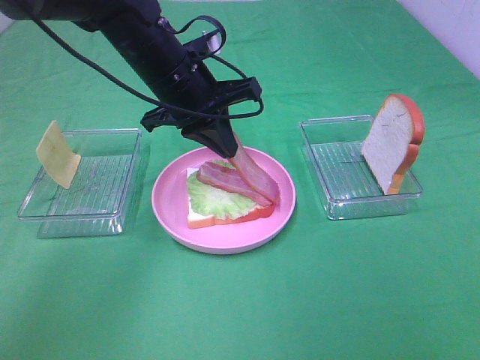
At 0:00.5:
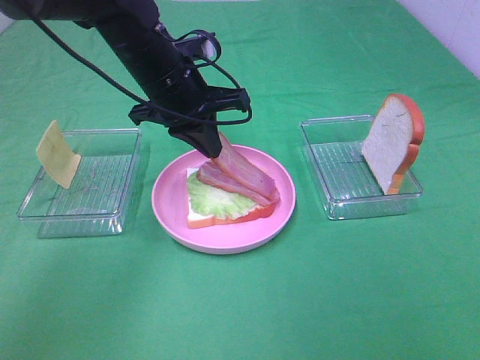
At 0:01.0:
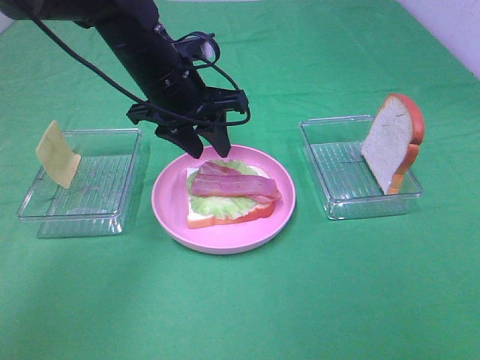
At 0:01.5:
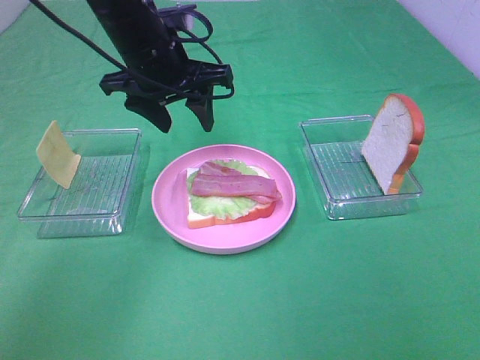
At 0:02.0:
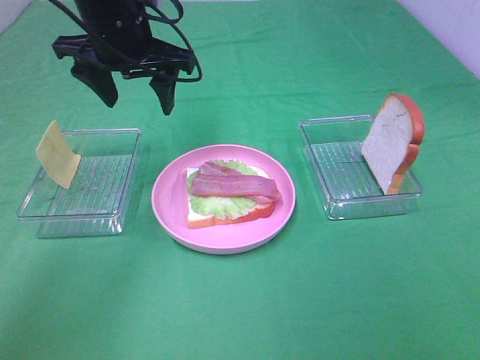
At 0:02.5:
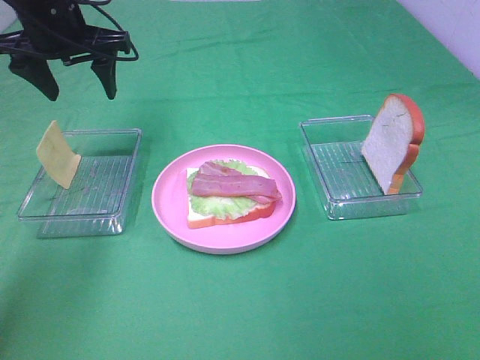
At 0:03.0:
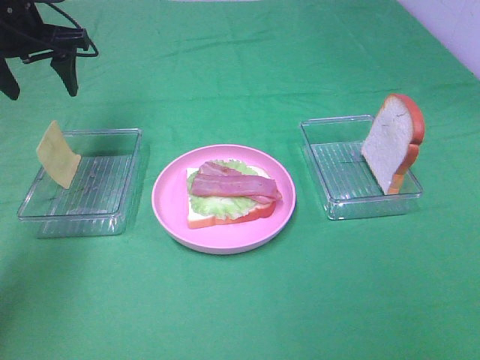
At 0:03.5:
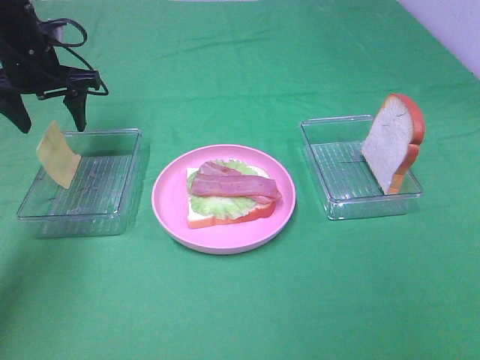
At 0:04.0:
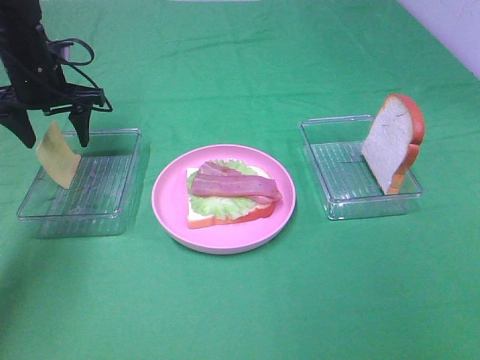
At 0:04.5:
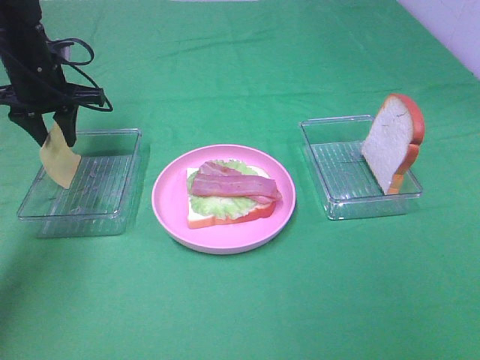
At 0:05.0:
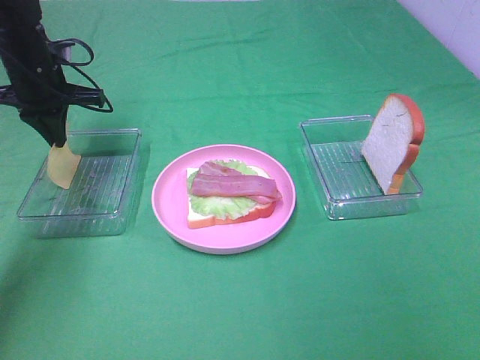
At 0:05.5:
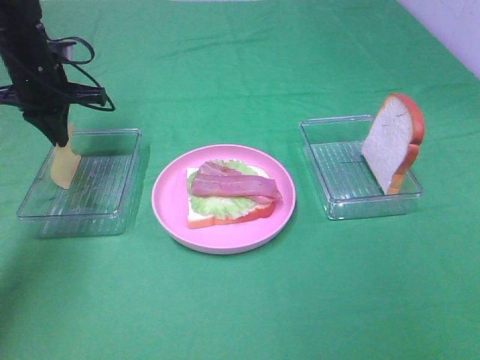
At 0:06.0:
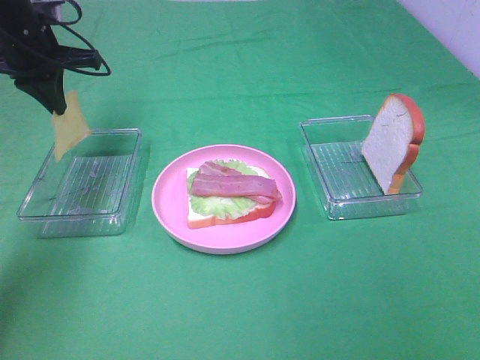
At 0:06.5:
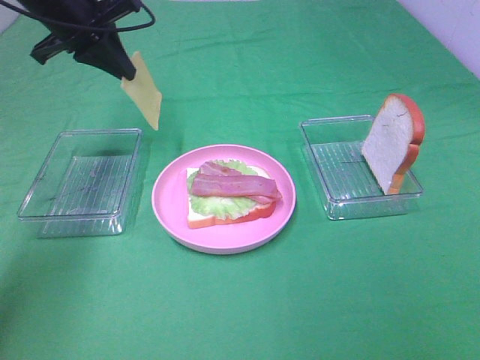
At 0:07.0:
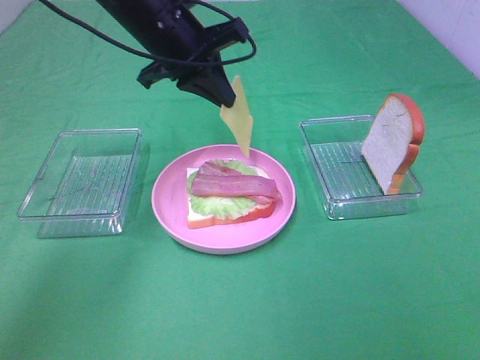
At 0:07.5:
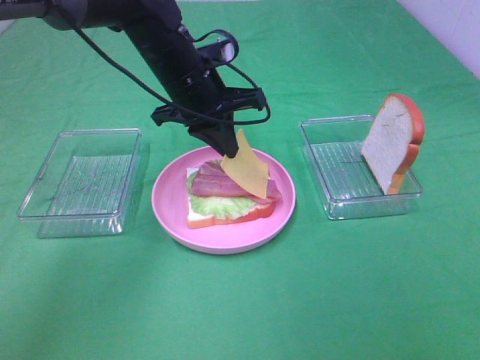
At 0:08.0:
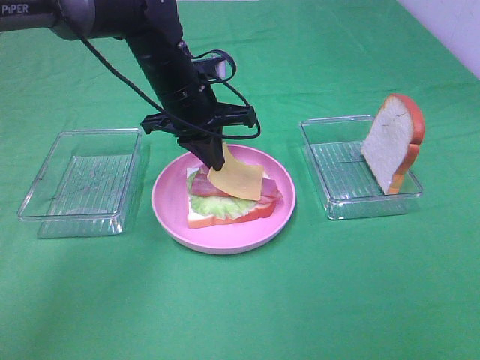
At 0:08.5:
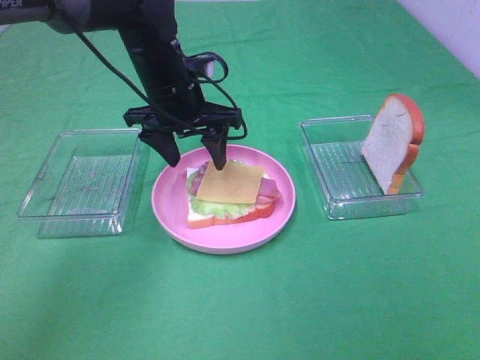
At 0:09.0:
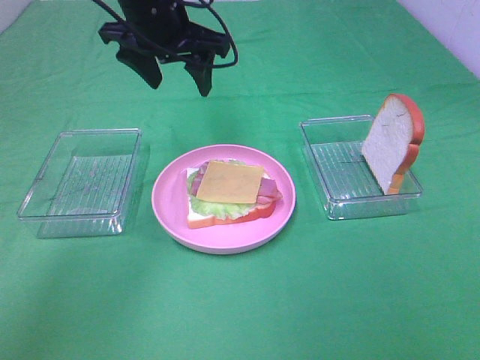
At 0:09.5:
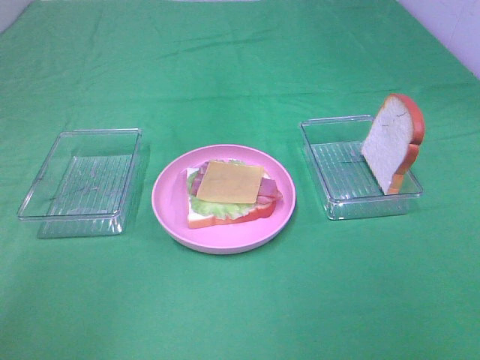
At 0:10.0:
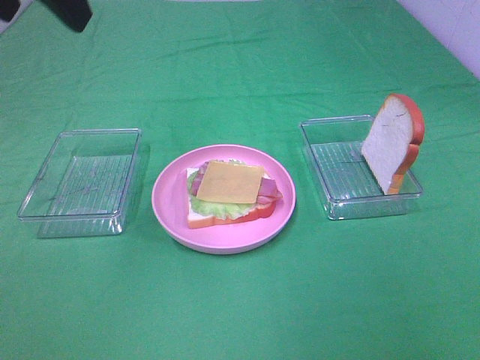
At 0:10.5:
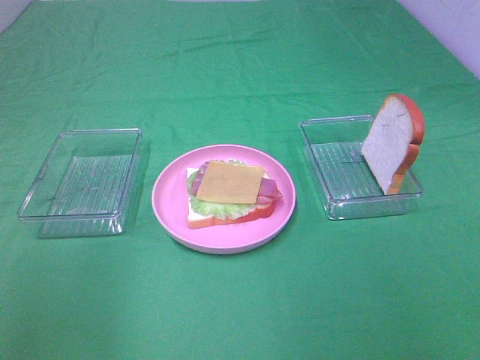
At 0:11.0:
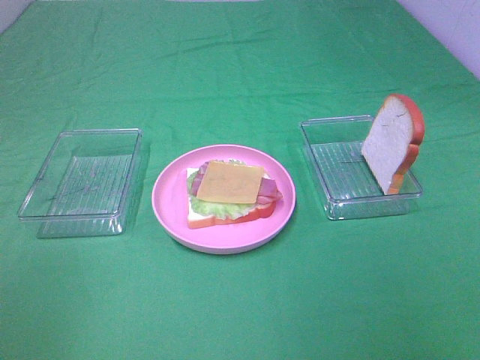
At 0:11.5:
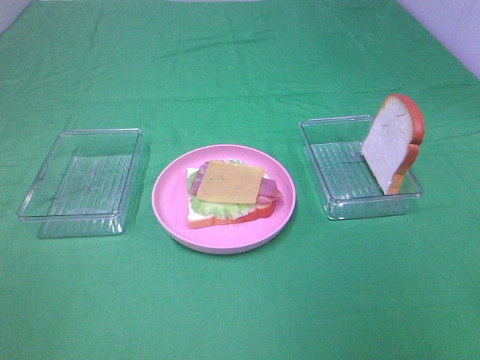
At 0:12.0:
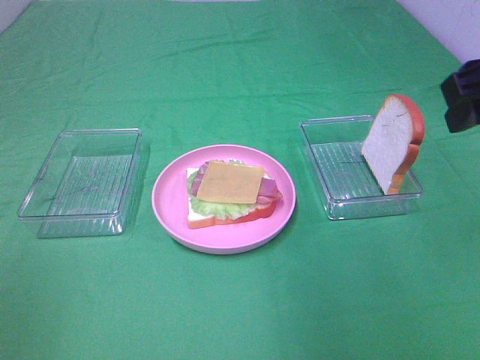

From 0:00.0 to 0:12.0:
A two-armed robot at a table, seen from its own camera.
Task of the whole recording: Make sandwiches.
Step, from 0:01.5 to 0:05.0: Left hand:grab the cheese slice.
Step, from 0:05.5 to 0:08.0: Left hand:place the cheese slice on top of the bacon.
From 0:00.0 to 0:02.0: The left gripper goes roughly 10 cm upward and to the left, and opens its fingers.
From 0:02.0 to 0:04.0: The left gripper is displaced to the left and downward by approximately 15 cm.
From 0:04.0 to 0:06.0: The left gripper heads upward, covering approximately 5 cm, and closes up.
From 0:06.0 to 0:08.0: The left gripper goes some 20 cm to the right.
From 0:08.0 to 0:10.0: The left gripper heads upward, backward and to the left, covering approximately 30 cm, and opens up.
From 0:10.0 to 0:12.0: The left gripper shifts some 30 cm backward, to the left and downward, while the right gripper heads forward, covering some 25 cm.

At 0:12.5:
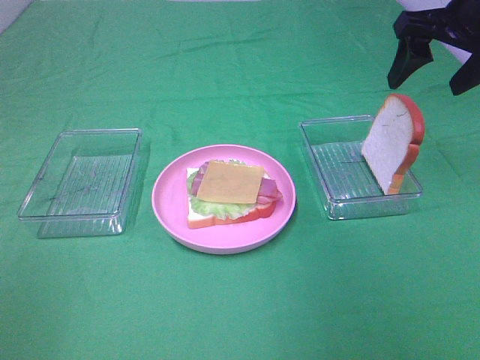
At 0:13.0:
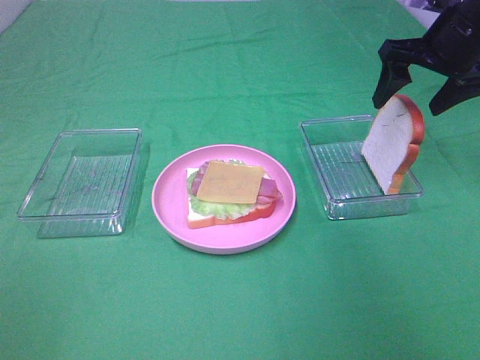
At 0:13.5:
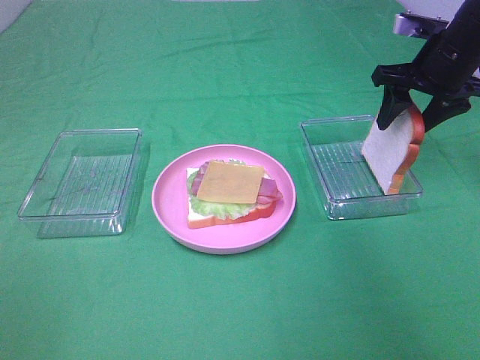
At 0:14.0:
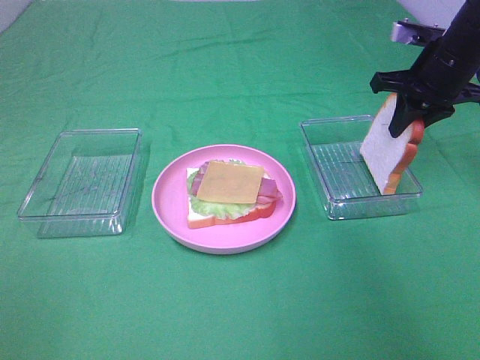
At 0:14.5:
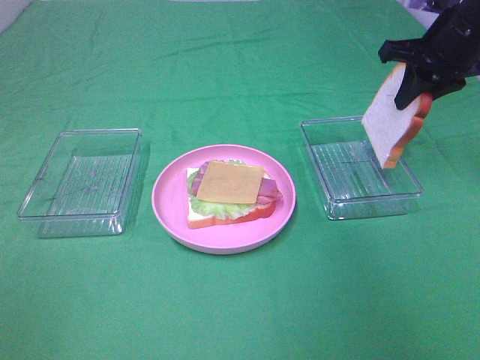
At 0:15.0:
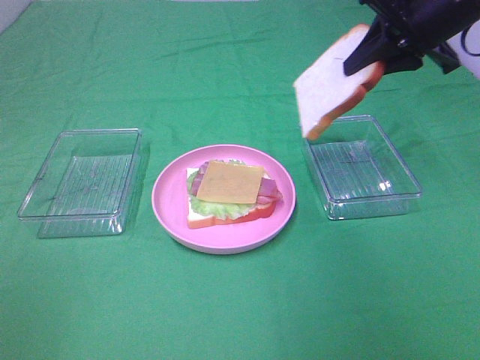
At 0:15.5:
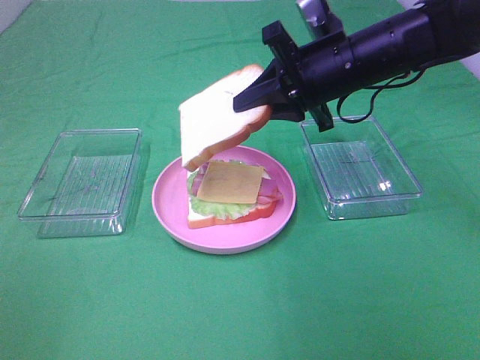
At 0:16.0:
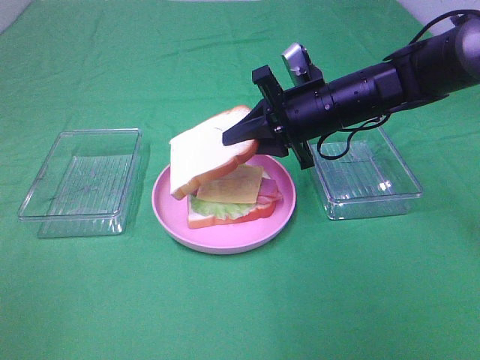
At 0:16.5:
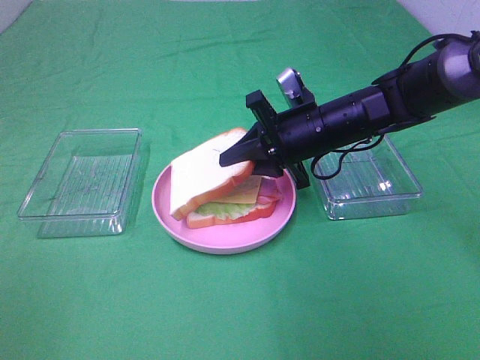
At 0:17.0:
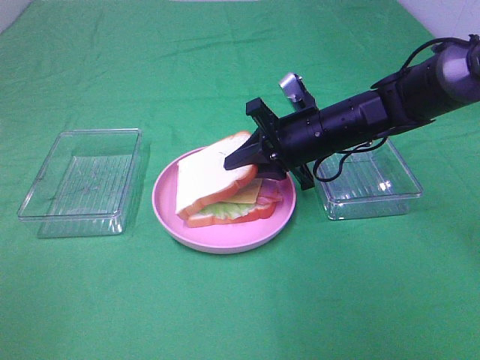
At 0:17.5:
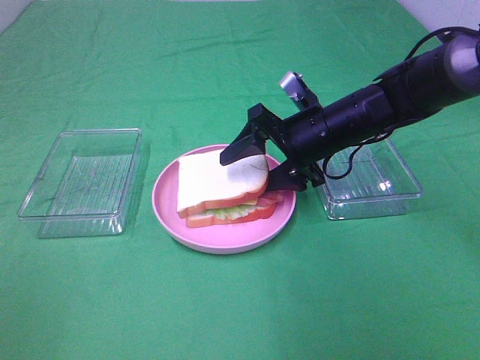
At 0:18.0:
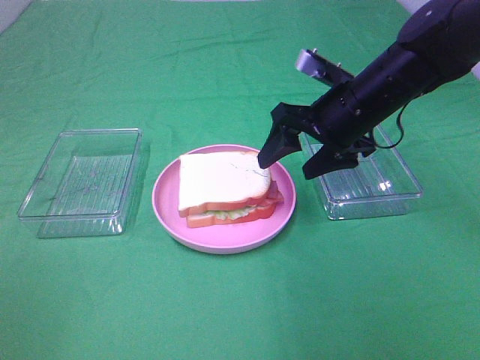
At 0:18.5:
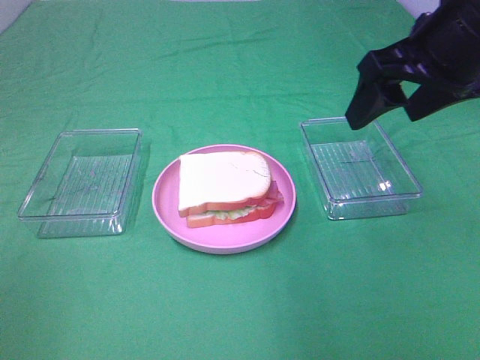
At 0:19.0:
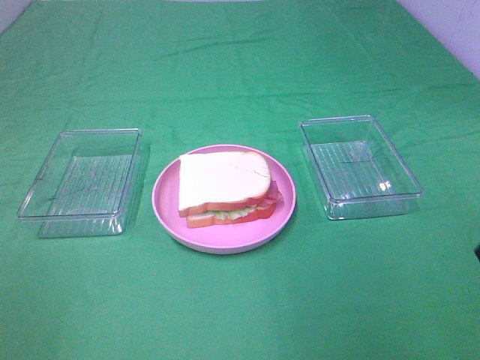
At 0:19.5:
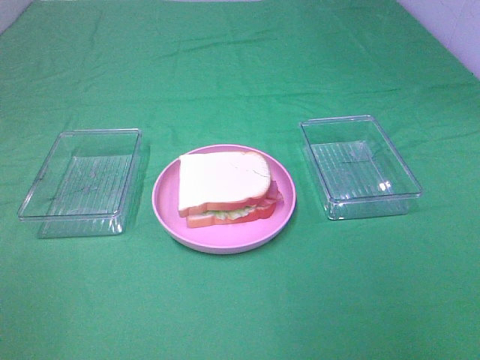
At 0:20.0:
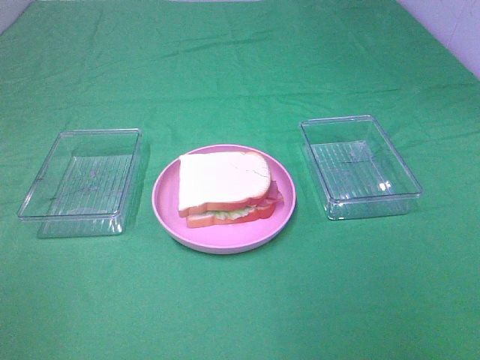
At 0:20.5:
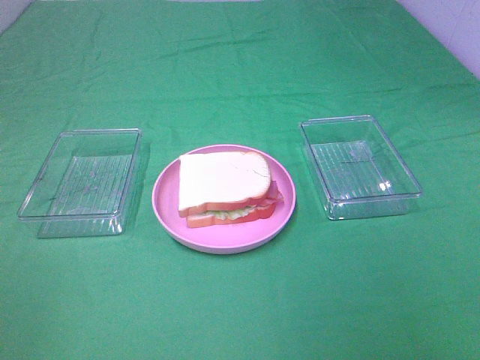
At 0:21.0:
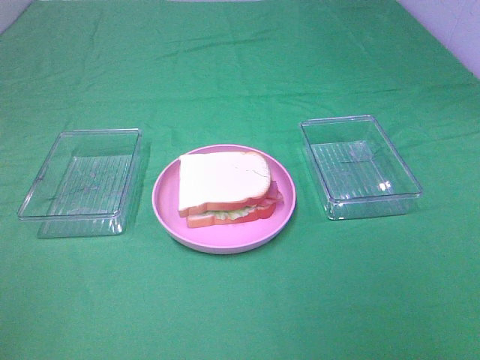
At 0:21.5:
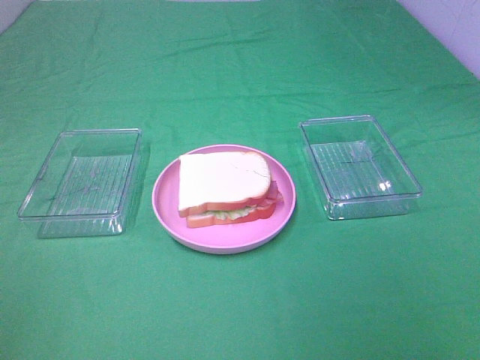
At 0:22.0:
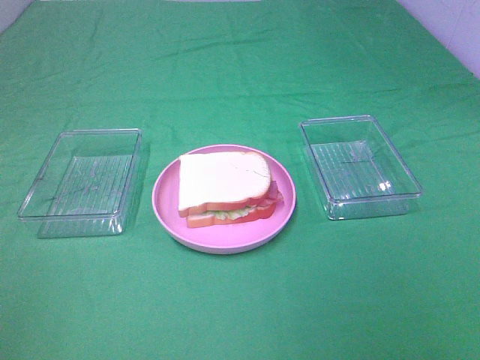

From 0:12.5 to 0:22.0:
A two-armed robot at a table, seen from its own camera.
Task of the whole recording: Make sandwiches.
Step, from 0:14.5 to 0:17.5: Right hand:place the bread slice on the cheese slice.
From 0:12.5 to 0:14.5: The right gripper closes up.
From 0:14.5 to 0:16.5: The right gripper goes approximately 20 cm to the left and downward.
From 0:16.5 to 0:18.0: The right gripper travels upward by roughly 5 cm, and opens up.
From 0:18.0 to 0:20.0: The right gripper travels backward by roughly 35 cm.

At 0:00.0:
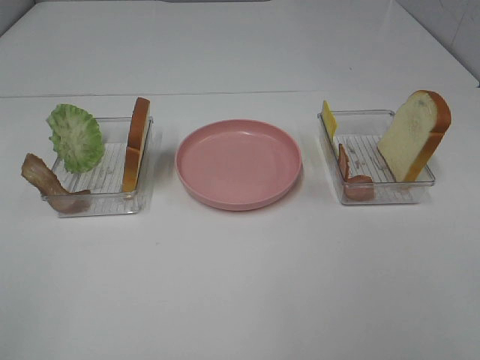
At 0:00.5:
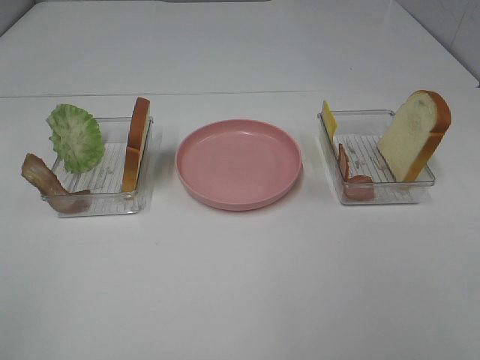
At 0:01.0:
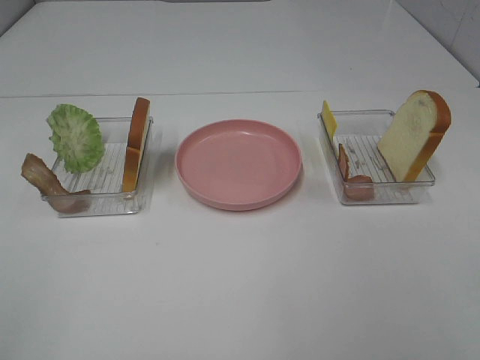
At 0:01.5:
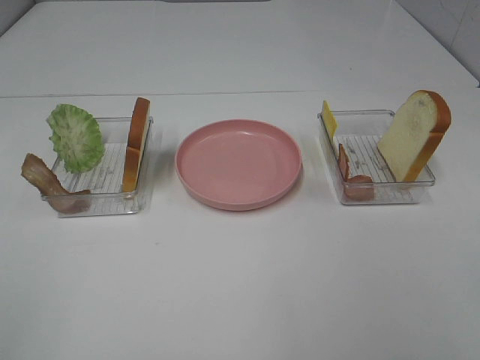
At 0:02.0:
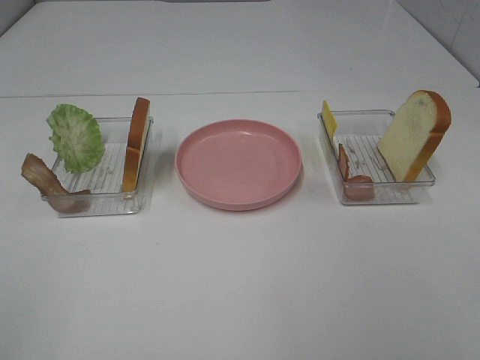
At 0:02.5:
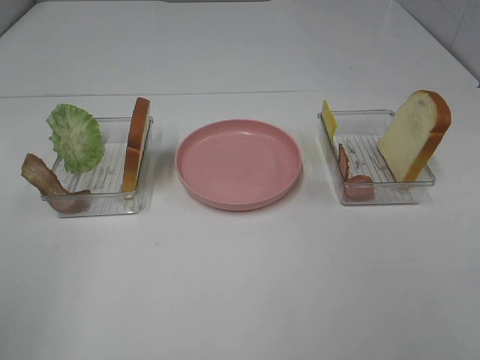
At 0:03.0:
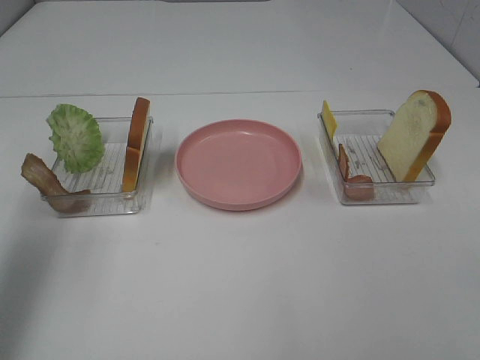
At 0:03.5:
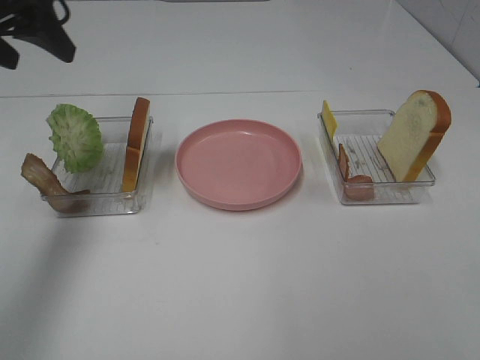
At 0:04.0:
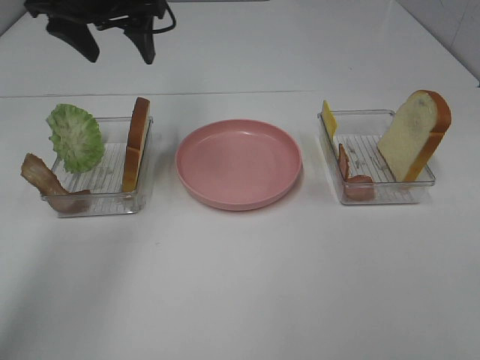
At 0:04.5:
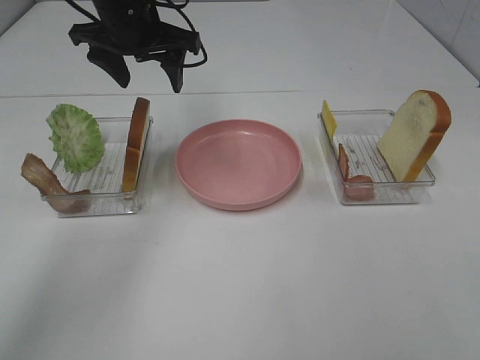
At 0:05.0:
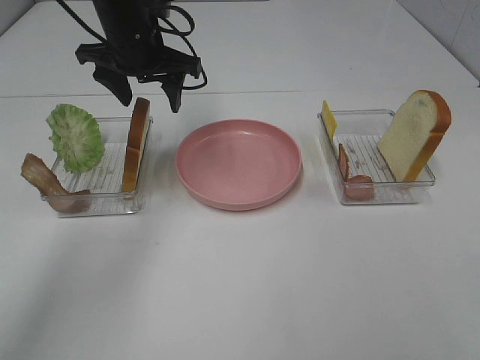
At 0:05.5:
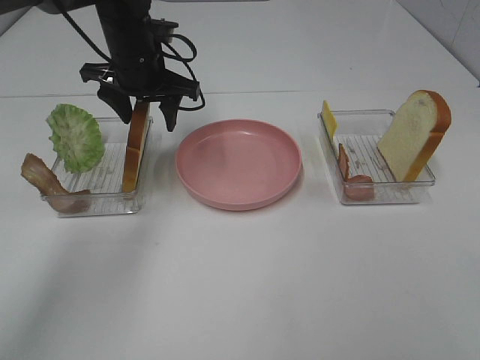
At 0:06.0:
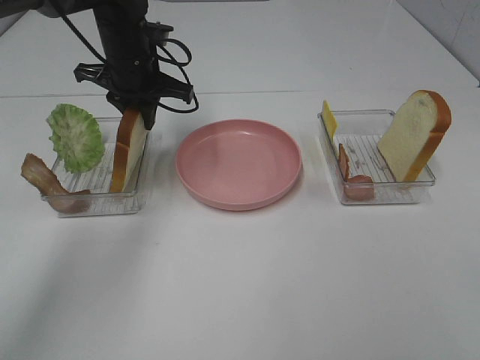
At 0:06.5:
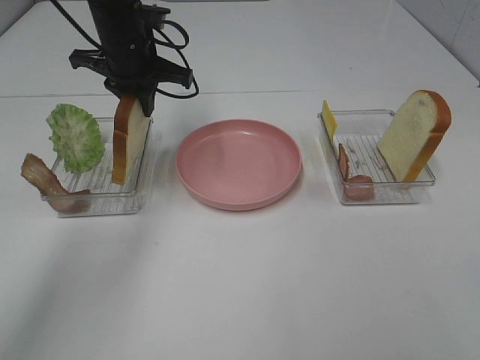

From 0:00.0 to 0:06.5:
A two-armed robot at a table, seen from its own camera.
Task of the whole recording: Make sandwiches.
Step, from 0:00.0 to 0:05.5: Left hand:grab the bread slice.
From 0:00.0 to 0:02.0: Both grippers stay put.
From 0:02.0 to 0:04.5: The left gripper heads forward and to the right, covering some 50 cm.
From 0:04.5 to 0:06.5: The left gripper closes its fingers.
